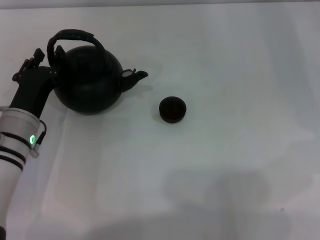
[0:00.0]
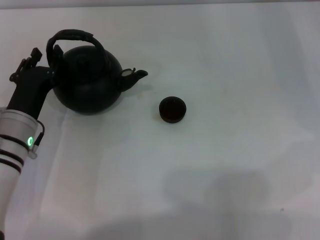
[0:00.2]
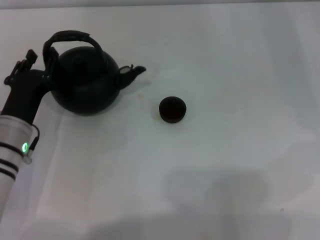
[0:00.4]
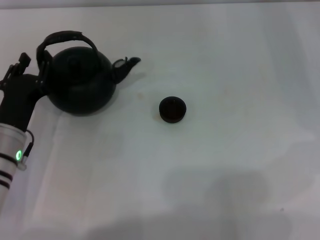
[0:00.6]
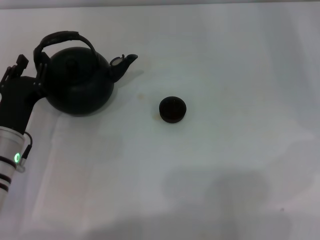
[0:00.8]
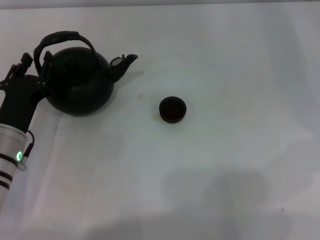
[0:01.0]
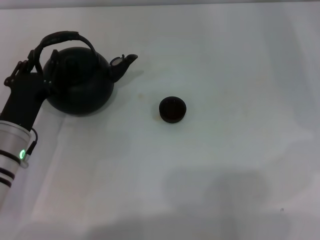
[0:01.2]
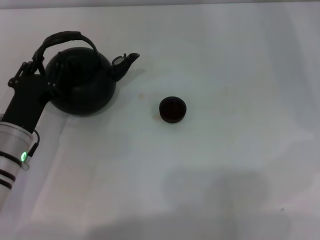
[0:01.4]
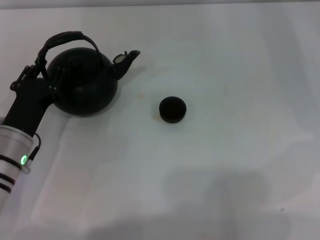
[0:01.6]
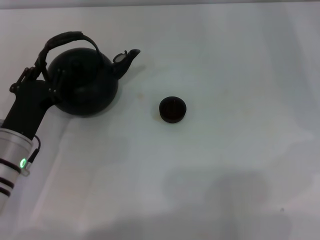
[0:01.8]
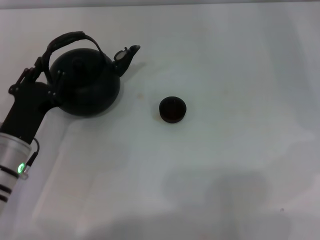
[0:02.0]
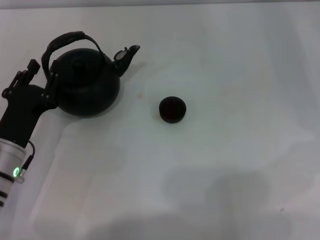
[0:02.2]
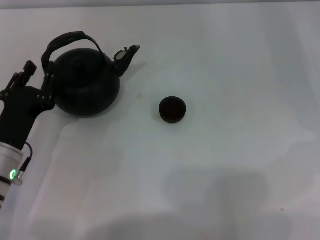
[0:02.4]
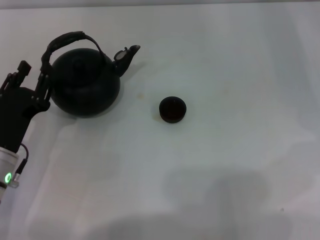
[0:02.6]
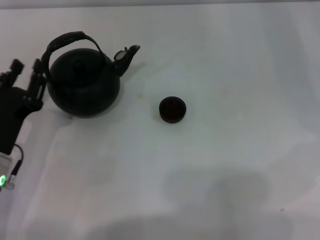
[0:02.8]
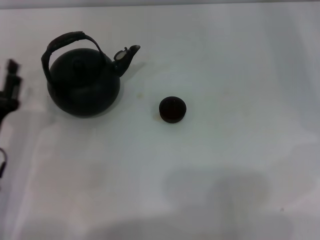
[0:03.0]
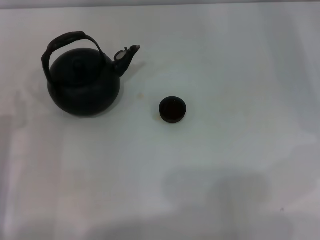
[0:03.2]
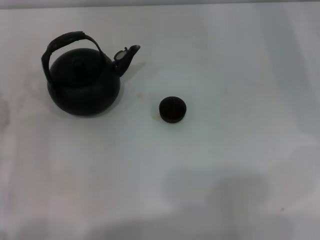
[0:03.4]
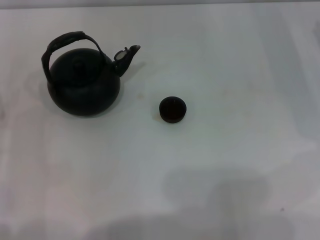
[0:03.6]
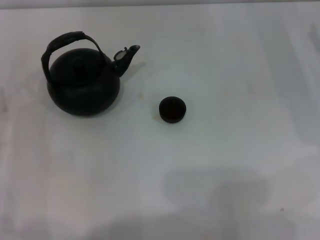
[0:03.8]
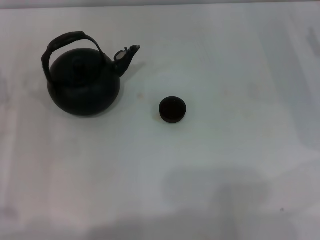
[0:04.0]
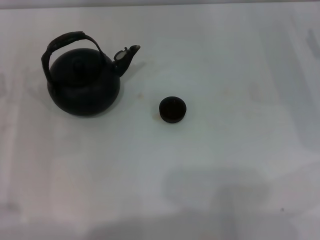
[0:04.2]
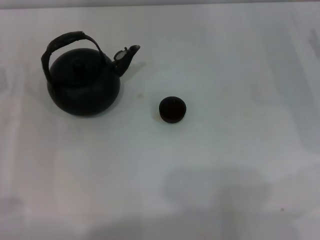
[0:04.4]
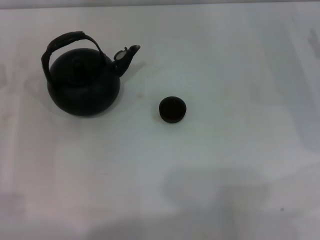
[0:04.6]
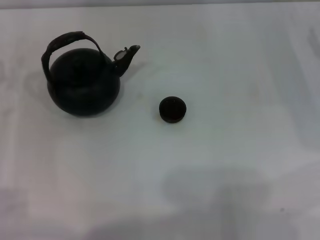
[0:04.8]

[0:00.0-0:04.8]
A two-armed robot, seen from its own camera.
Task of the whole recording: Grasp the handle of the teapot with one hand and pour tea into the teacup.
Step, 0:00.0 to 0:02.4: Put down the teapot with the left gripper.
0:00.0 to 0:01.6: The grippers move only a little.
0:01.6 to 0:03.2: The left gripper goes some 5 cm to the left.
